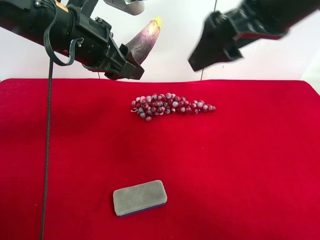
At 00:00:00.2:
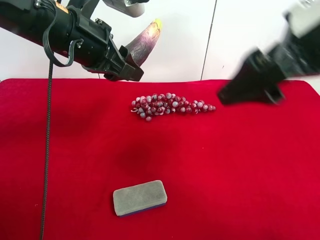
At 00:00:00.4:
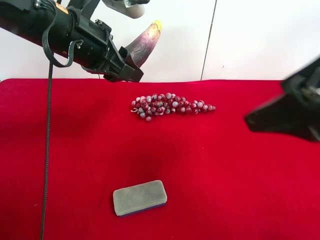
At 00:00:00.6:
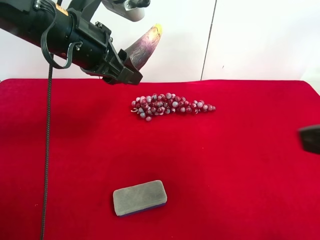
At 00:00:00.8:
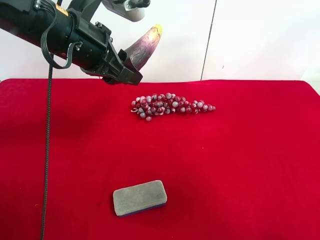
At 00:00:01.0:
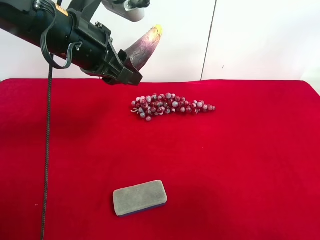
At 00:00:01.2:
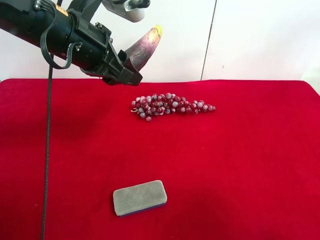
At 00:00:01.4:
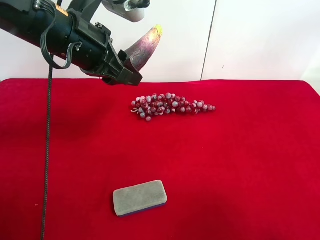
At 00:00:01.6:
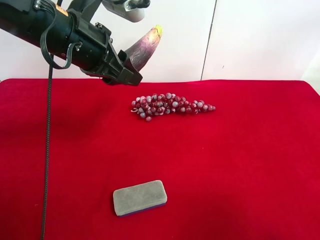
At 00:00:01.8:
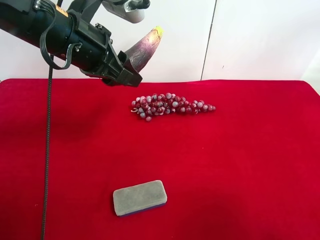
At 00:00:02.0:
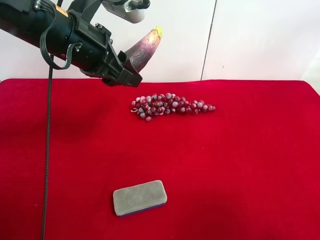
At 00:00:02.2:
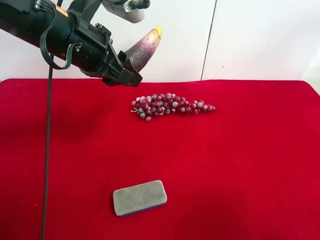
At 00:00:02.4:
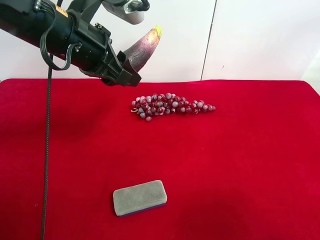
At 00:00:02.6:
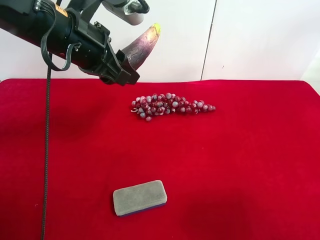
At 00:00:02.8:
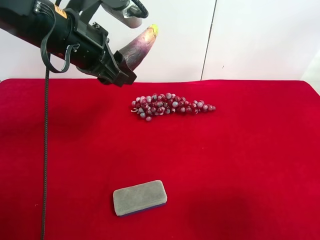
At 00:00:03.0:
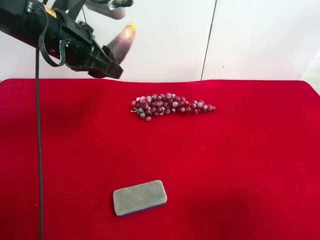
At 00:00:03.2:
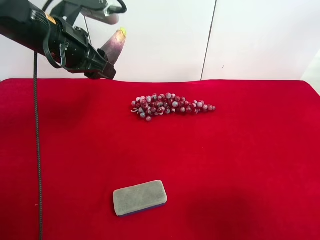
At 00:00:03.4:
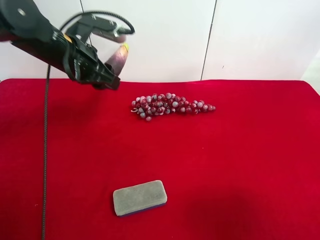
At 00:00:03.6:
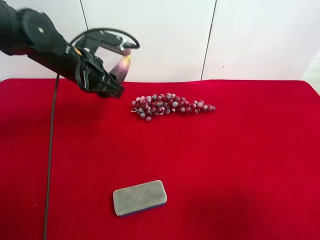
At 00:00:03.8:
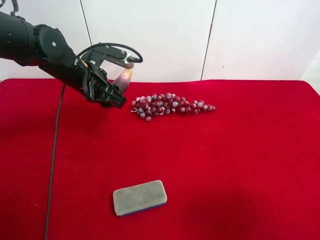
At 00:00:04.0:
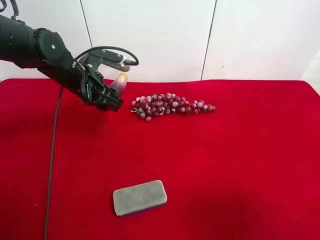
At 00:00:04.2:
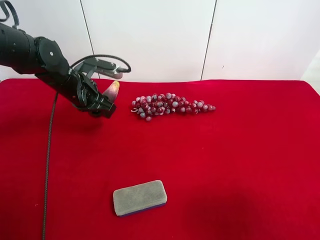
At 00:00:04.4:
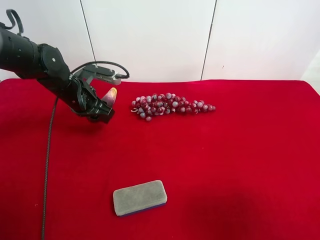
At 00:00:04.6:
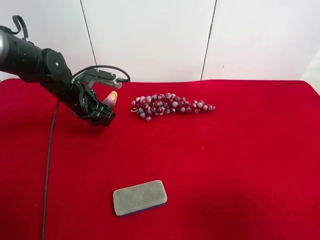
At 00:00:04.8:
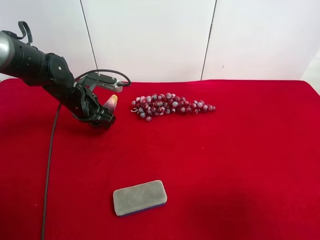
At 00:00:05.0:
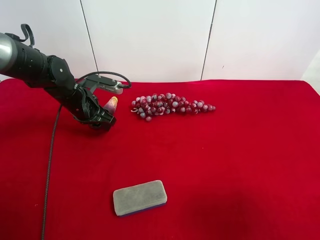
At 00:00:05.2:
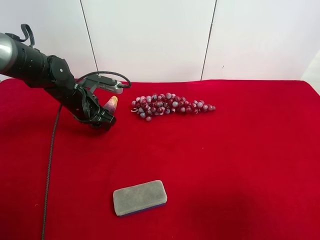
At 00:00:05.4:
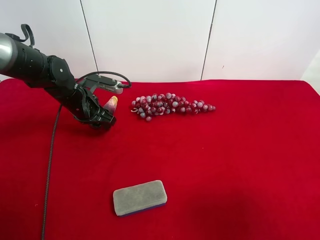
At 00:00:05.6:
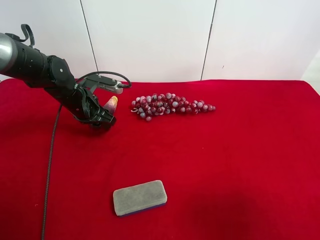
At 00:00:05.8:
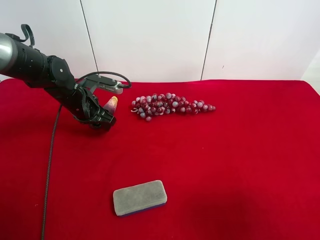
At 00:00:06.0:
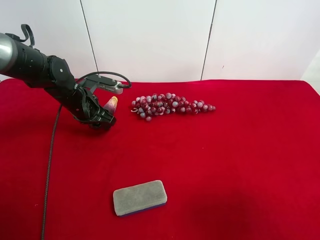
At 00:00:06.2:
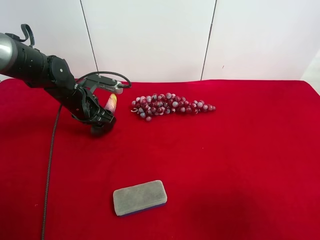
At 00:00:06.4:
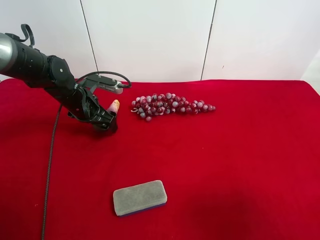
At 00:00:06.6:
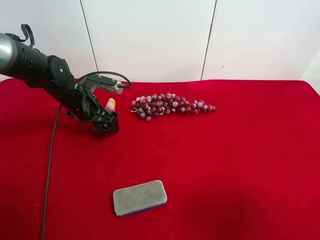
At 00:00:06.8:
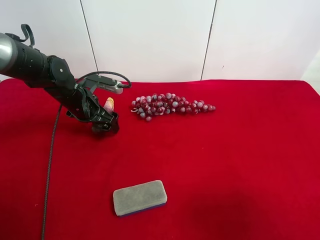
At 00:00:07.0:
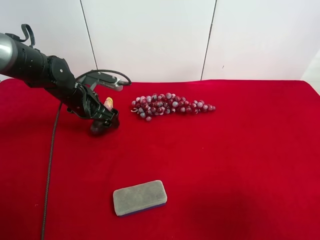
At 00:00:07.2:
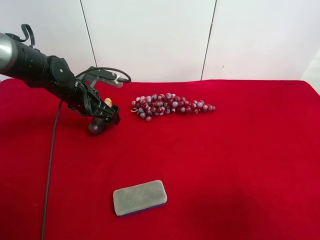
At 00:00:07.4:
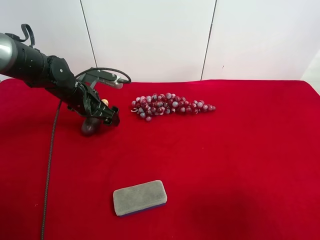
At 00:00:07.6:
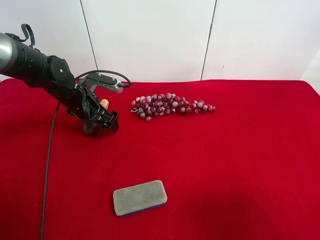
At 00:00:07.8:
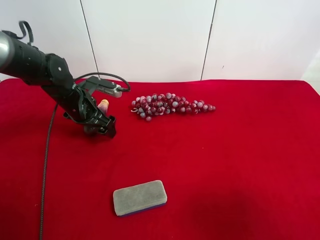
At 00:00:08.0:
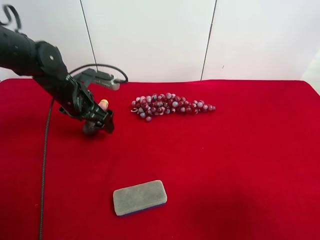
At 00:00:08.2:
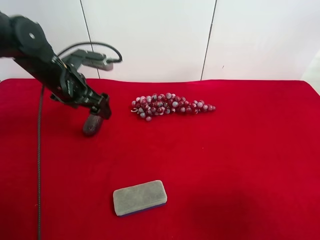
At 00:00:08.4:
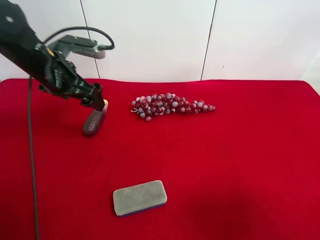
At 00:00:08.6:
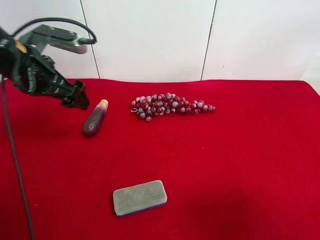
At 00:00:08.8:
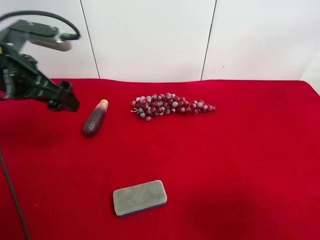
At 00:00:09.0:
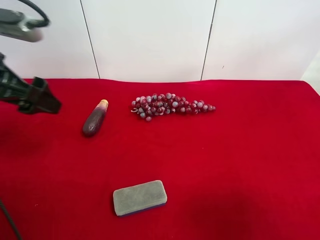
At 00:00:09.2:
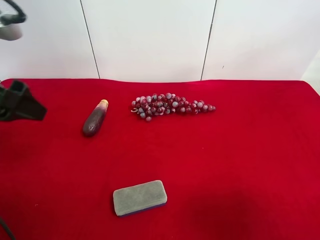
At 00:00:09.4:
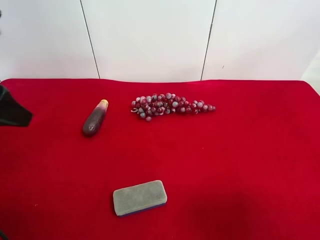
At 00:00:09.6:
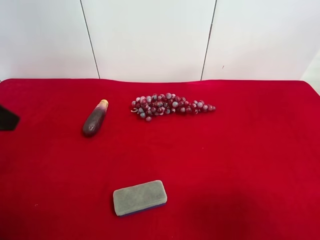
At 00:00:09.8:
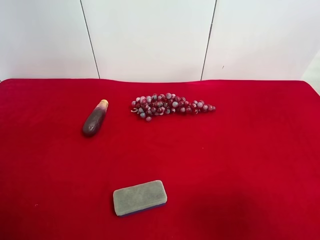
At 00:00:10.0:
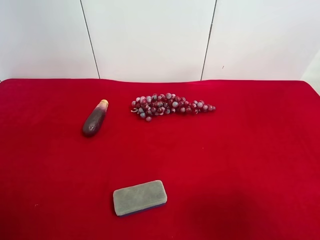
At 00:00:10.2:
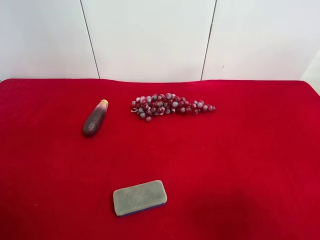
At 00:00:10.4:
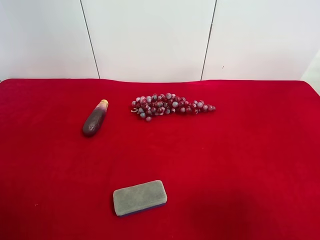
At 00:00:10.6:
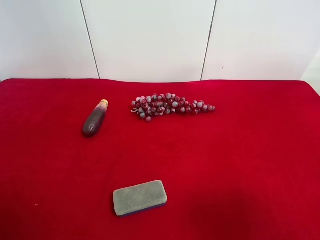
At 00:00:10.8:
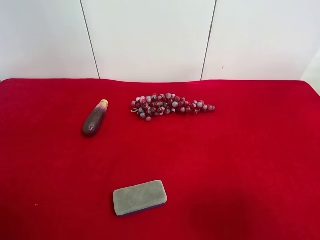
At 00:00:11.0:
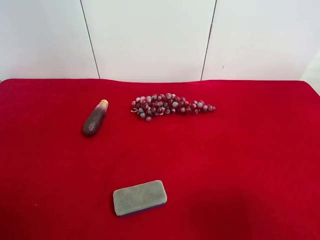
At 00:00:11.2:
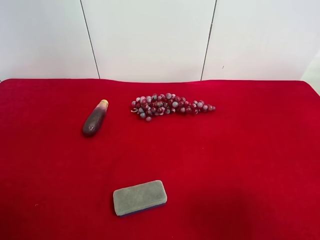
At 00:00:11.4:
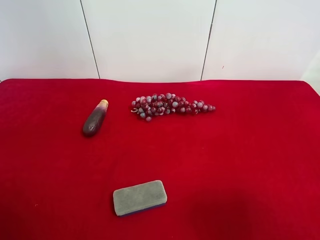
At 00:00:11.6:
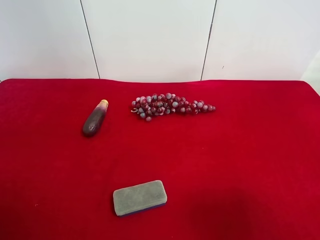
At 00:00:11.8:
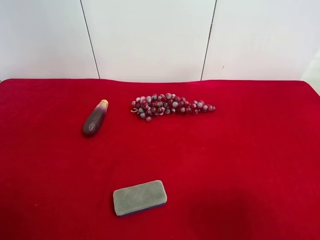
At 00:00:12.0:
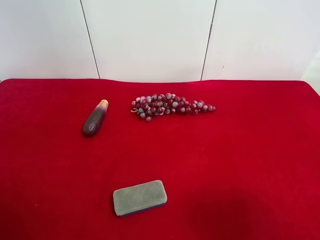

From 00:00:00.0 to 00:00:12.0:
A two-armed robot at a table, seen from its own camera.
Task of the whole recording: use the right gripper to pick up the item and transfer it from the right gripper to the left gripper.
Step, from 00:00:00.0 to 00:00:07.0: The left gripper places eggplant on the left side of the table.
From 00:00:00.0 to 00:00:01.6: The right gripper shifts approximately 25 cm backward, to the right and downward.
From 00:00:03.0 to 00:00:04.4: The left gripper shifts approximately 15 cm downward and forward.
From 00:00:04.4 to 00:00:06.0: There are only small adjustments of the grippers.
From 00:00:06.0 to 00:00:07.6: The left gripper opens.
From 00:00:07.6 to 00:00:09.0: The left gripper travels upward and backward by approximately 25 cm.
From 00:00:09.0 to 00:00:10.4: The left gripper shifts roughly 15 cm backward.
